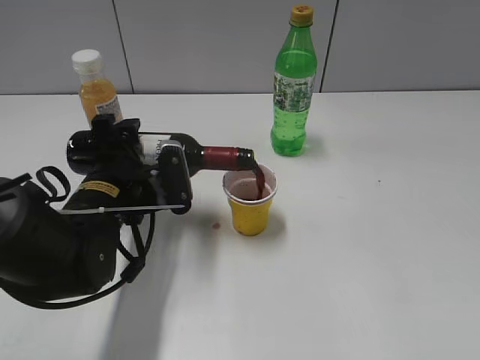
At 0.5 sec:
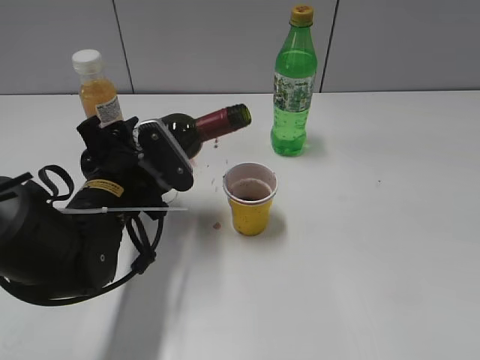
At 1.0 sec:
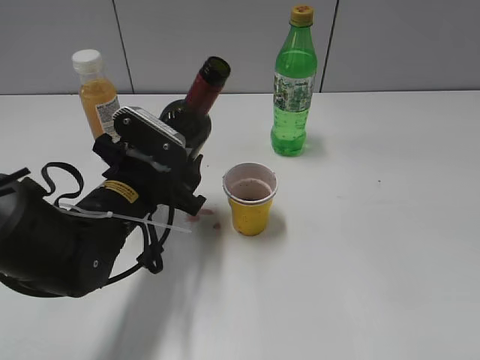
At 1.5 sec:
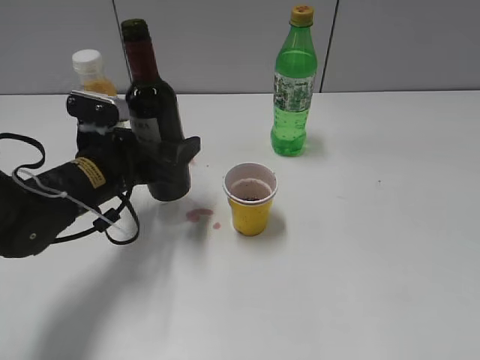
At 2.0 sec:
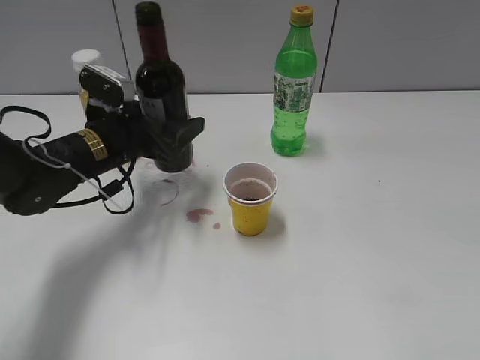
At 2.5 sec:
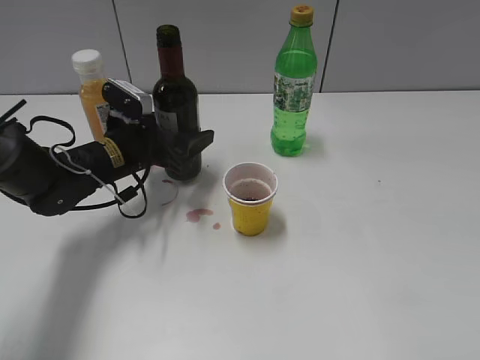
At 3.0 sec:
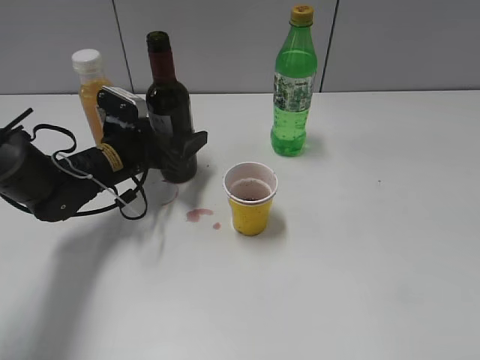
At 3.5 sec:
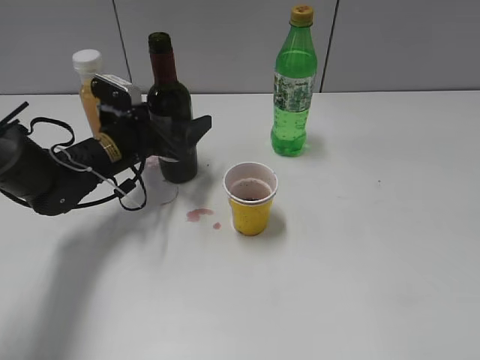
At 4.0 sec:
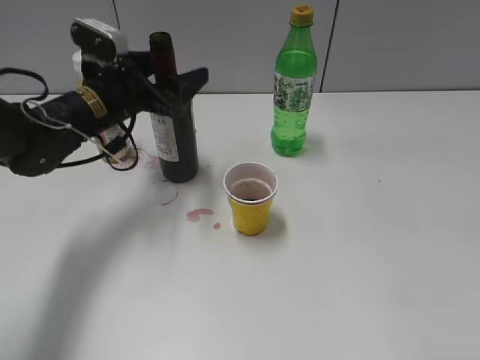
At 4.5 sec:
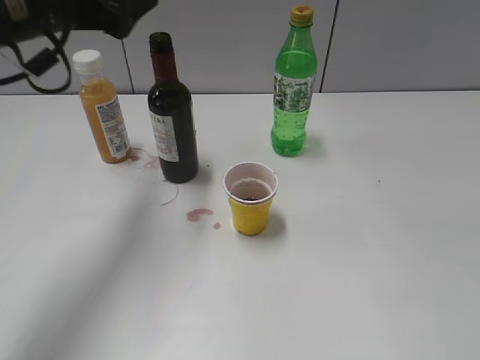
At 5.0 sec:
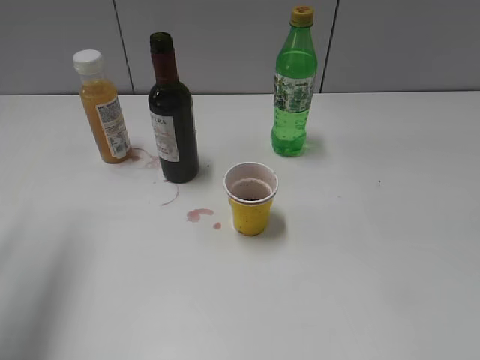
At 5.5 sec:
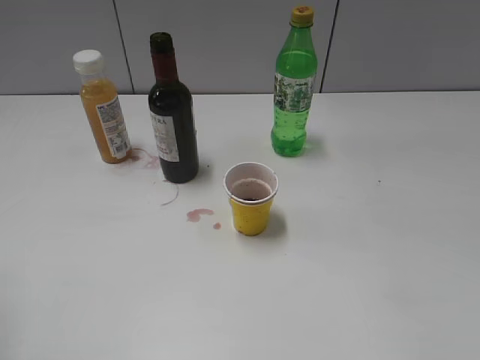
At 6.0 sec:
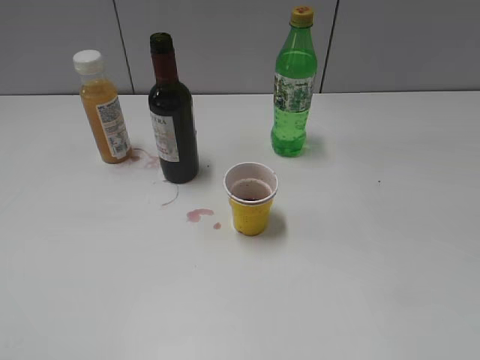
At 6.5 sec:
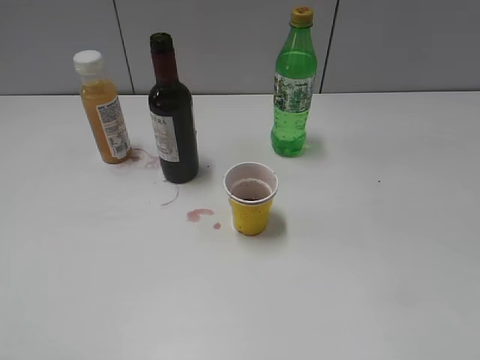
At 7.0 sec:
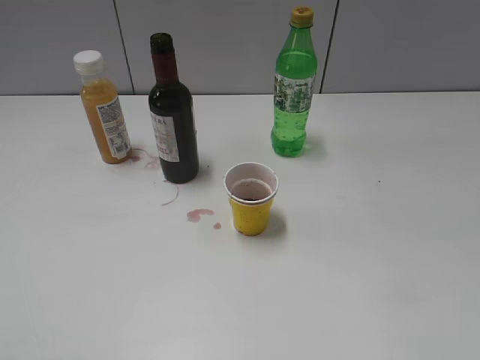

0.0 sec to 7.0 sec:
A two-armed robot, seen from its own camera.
Step, 1.0 sec to 3.5 sec: Place the red wine bottle on the table with left gripper.
0.0 sec to 2.0 sec: The left gripper shifts roughly 10 cm forward.
2.0 sec to 3.5 sec: The left gripper opens.
3.5 sec to 5.0 sec: The left gripper heads upward, backward and to the left, covering some 30 cm.
5.0 sec to 7.0 sec: The left gripper travels backward by roughly 25 cm.
